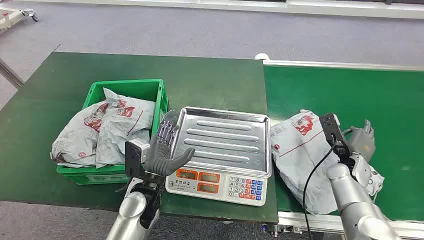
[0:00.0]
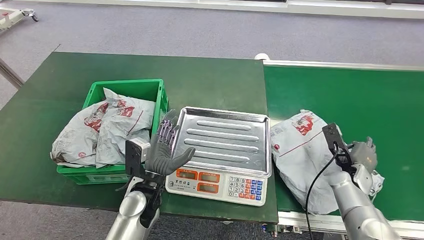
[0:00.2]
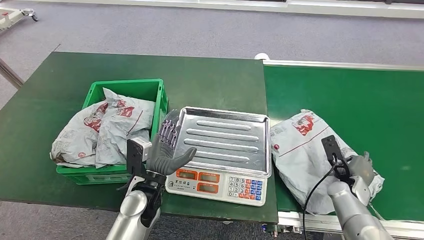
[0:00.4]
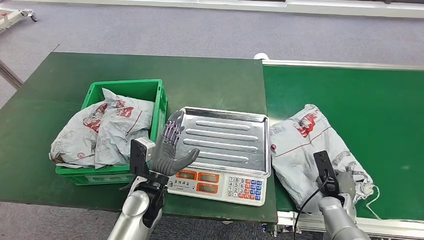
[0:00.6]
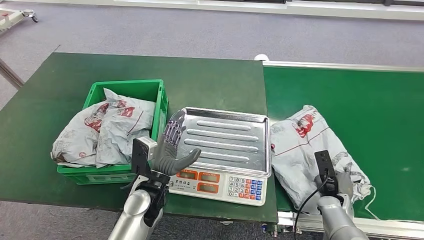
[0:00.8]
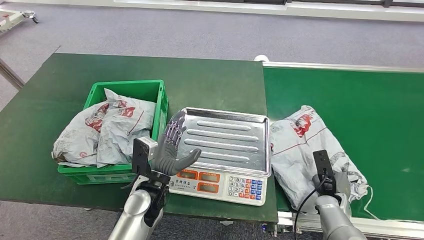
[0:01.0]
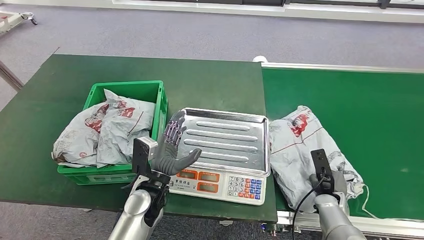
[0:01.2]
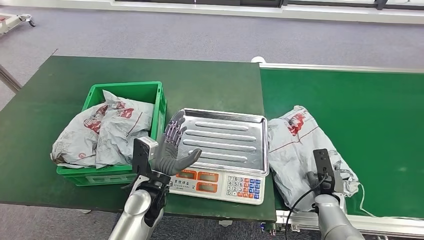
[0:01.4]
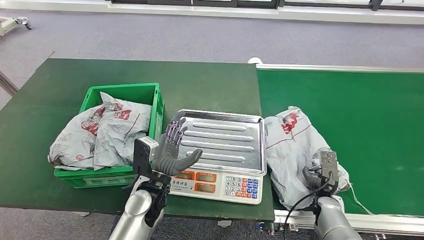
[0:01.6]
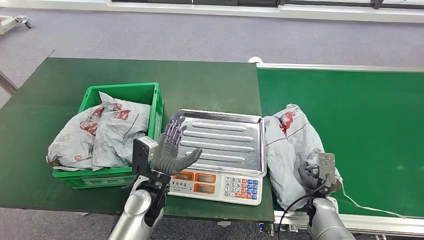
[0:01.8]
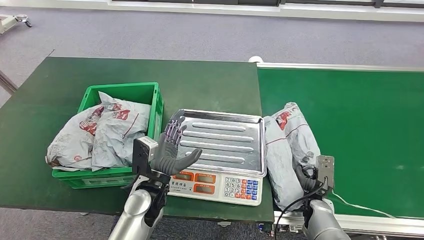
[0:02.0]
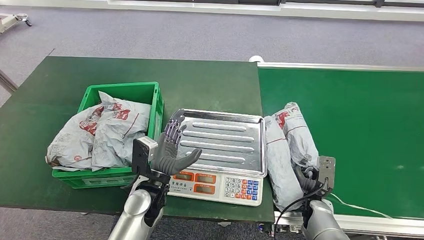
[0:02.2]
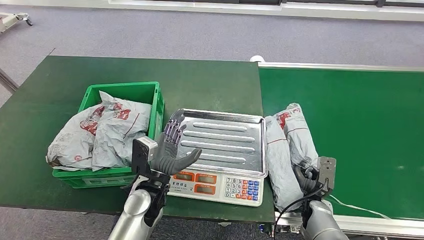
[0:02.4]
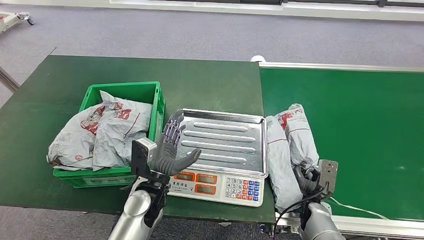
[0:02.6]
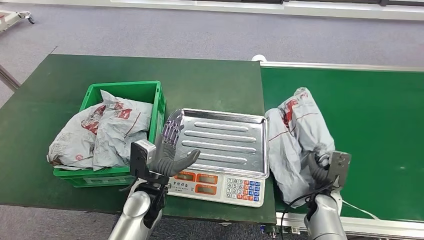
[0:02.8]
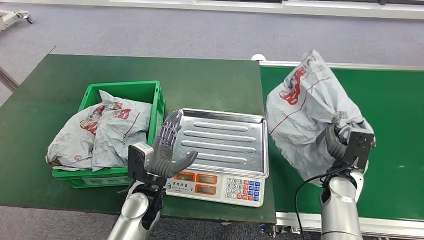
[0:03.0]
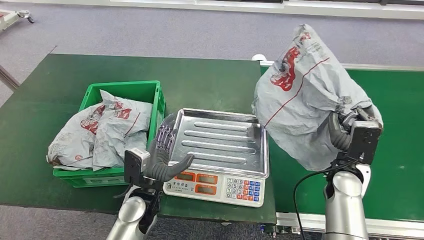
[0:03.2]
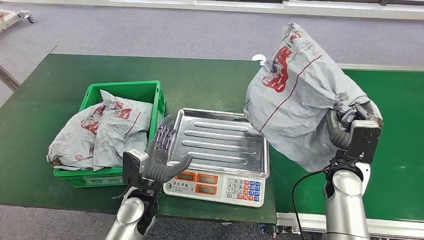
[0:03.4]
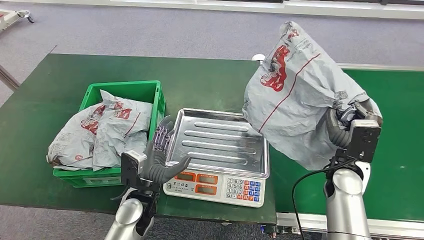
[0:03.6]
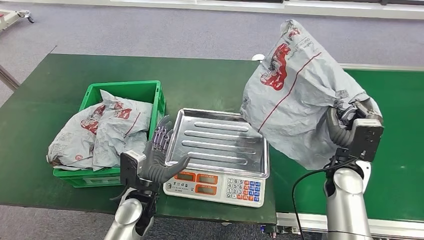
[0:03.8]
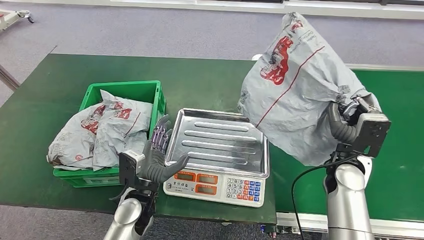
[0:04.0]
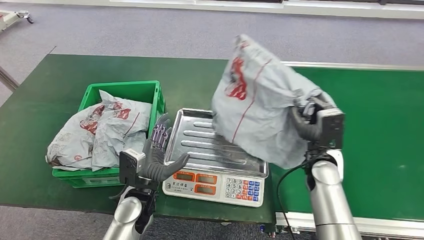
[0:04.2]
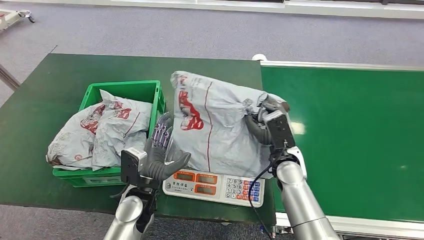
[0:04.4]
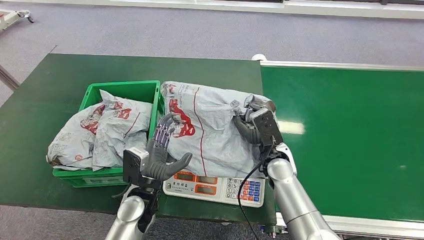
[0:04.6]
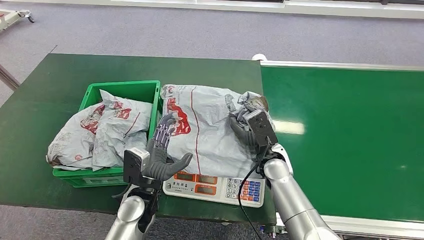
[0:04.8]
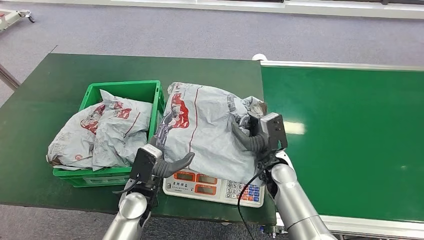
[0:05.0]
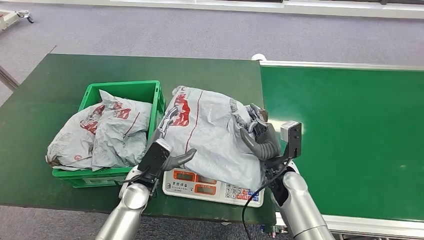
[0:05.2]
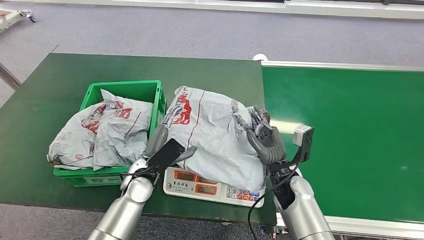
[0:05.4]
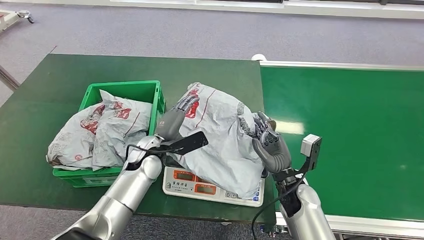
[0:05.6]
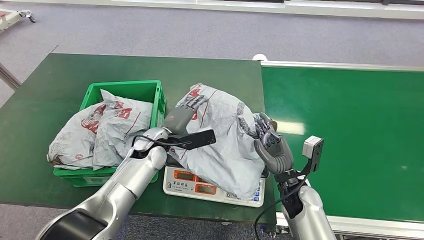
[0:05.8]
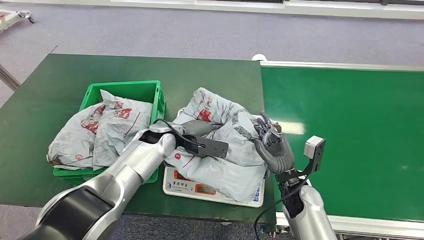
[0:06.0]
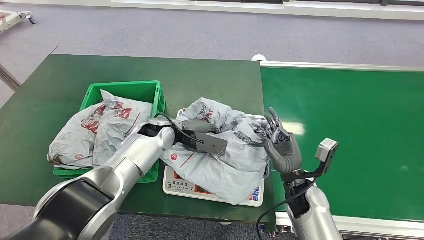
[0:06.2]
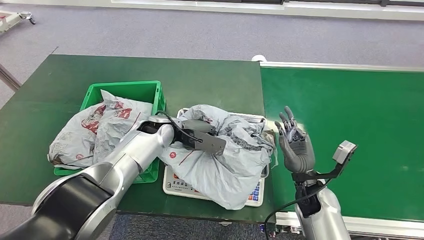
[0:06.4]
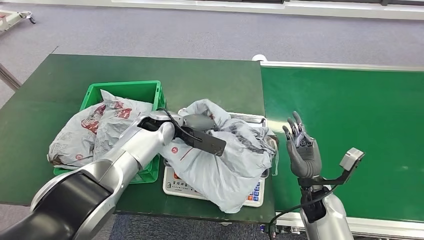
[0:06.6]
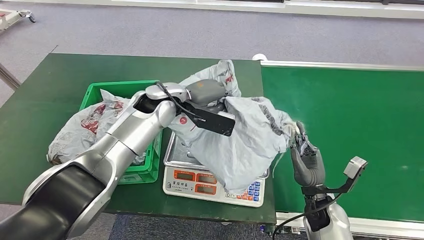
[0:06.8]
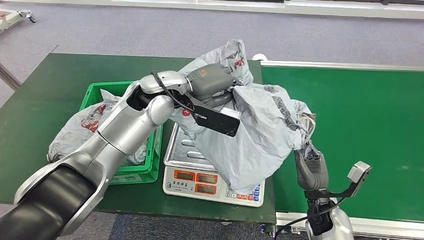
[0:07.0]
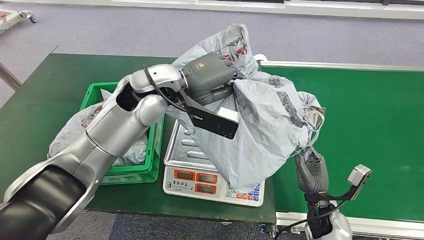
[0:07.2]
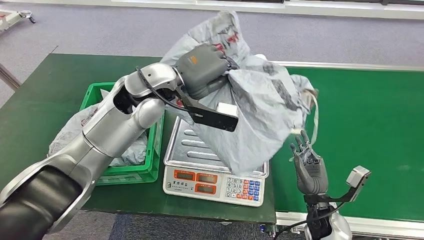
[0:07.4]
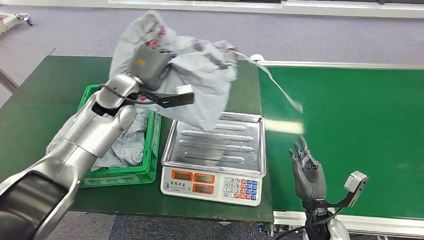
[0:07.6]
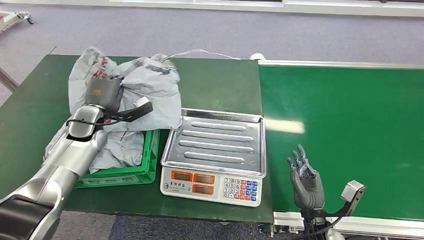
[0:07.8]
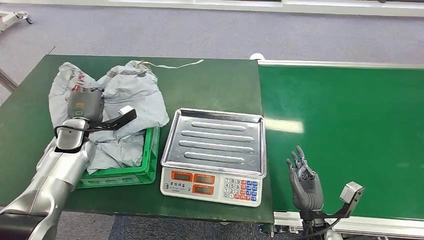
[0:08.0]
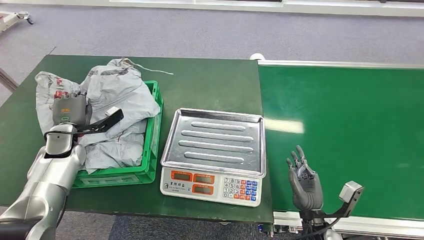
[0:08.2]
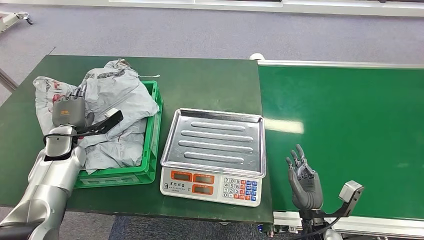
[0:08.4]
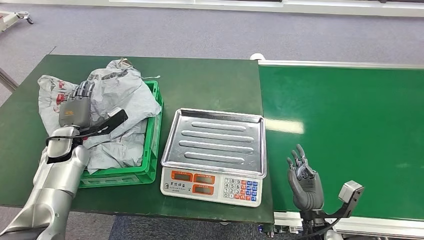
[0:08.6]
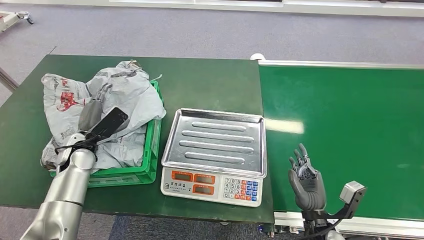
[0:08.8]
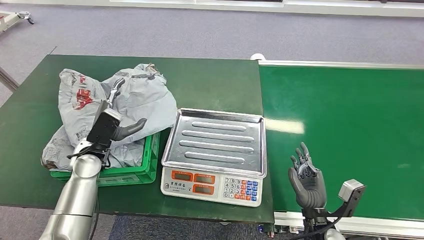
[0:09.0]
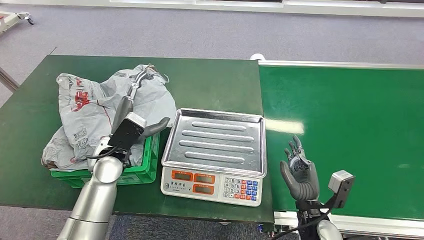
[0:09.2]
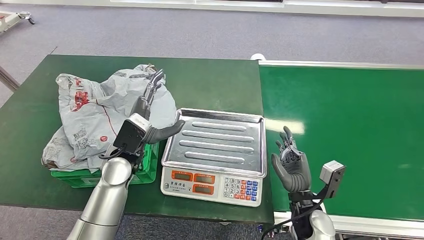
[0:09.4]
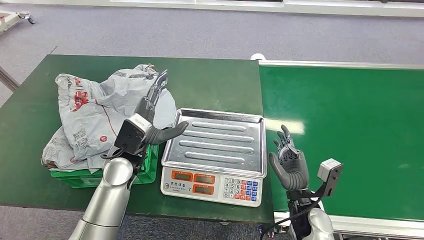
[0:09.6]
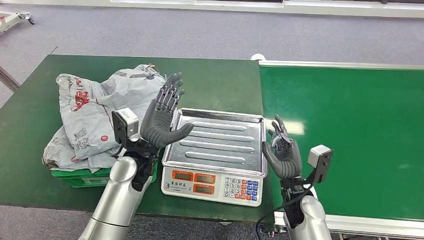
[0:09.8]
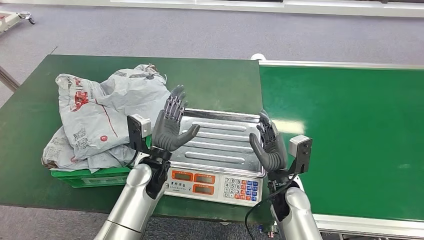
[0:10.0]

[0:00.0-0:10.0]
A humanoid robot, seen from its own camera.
Step, 0:00.0 to 0:03.8: Pick up the package from the conveyor belt.
Step, 0:04.0 to 0:06.2: Place the package onto the inbound machine.
Step, 0:06.4 to 0:07.6: Pick up the package from the inbound machine.
Step, 0:07.8 to 0:10.0: Place the package into the parcel locker.
